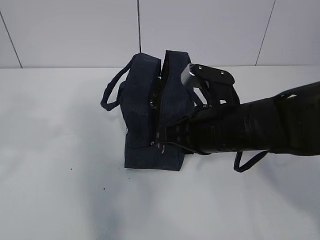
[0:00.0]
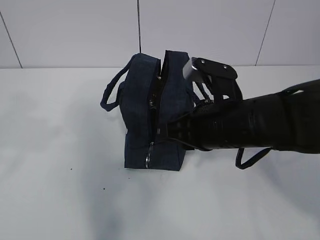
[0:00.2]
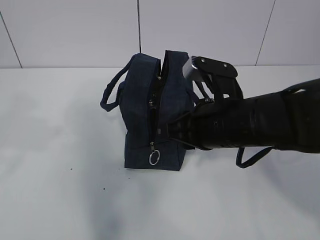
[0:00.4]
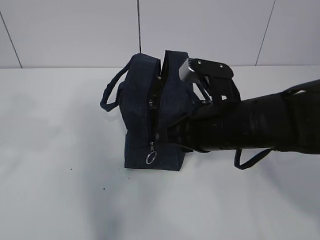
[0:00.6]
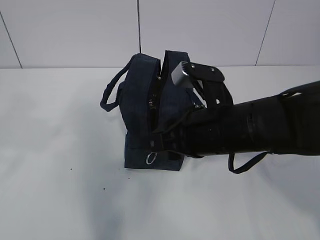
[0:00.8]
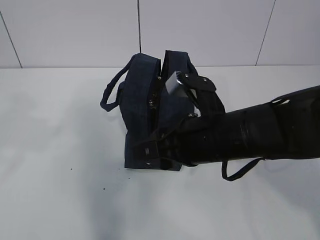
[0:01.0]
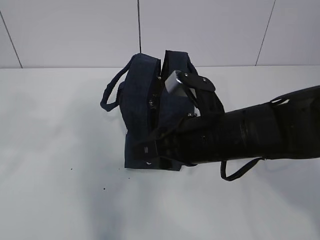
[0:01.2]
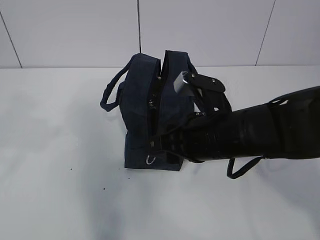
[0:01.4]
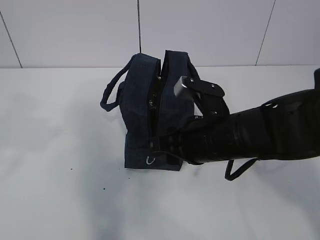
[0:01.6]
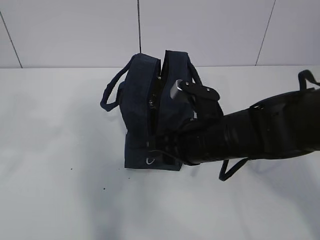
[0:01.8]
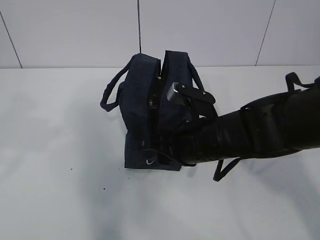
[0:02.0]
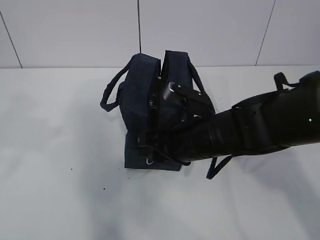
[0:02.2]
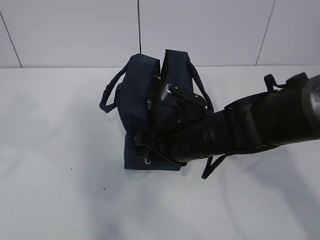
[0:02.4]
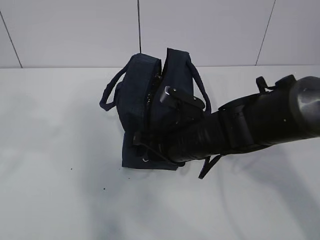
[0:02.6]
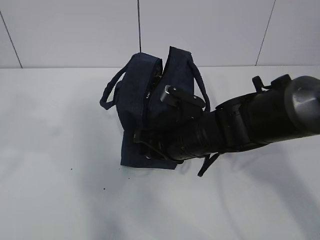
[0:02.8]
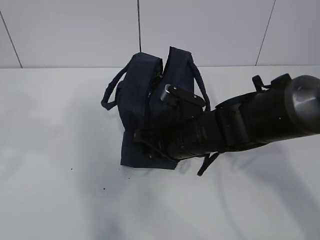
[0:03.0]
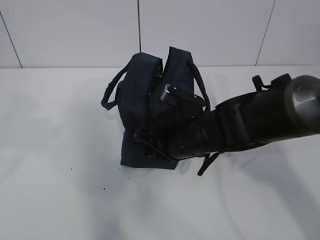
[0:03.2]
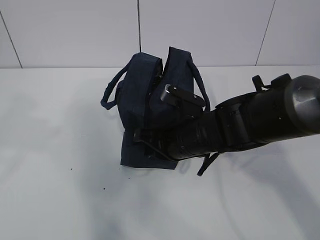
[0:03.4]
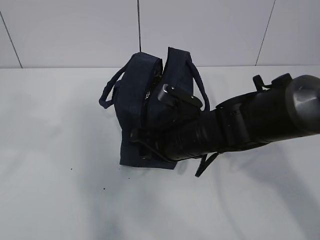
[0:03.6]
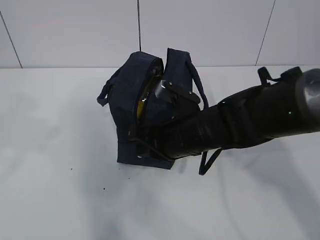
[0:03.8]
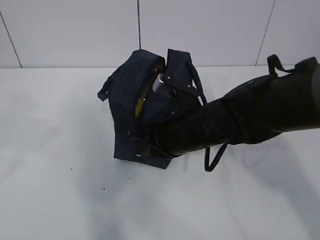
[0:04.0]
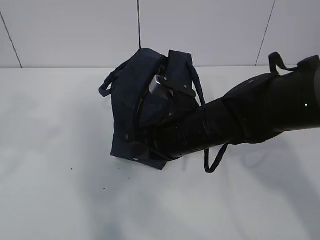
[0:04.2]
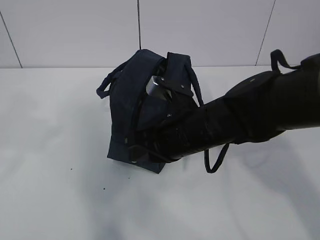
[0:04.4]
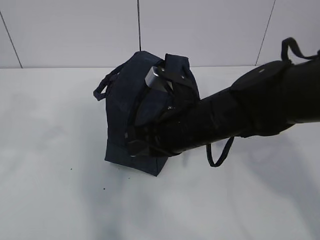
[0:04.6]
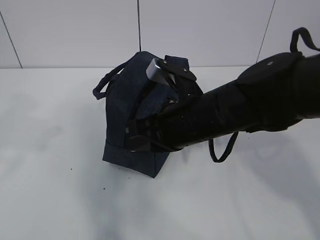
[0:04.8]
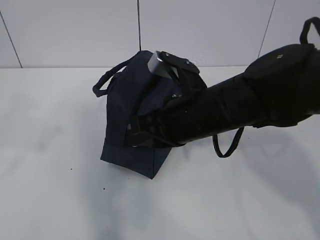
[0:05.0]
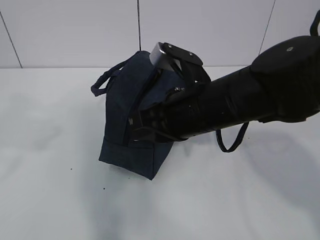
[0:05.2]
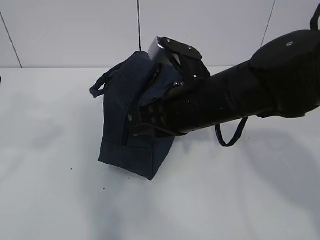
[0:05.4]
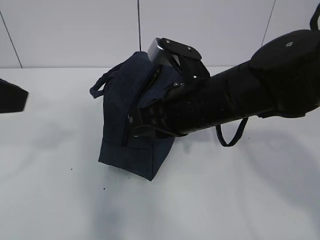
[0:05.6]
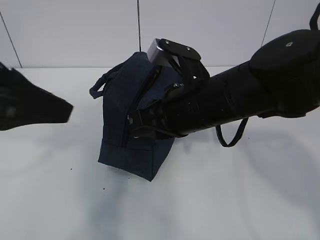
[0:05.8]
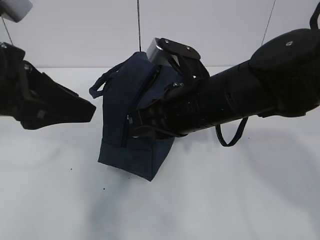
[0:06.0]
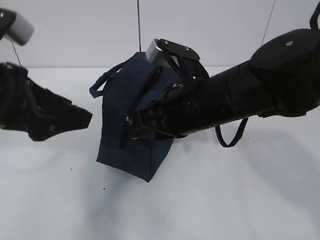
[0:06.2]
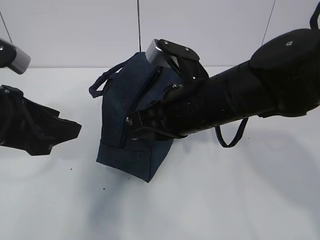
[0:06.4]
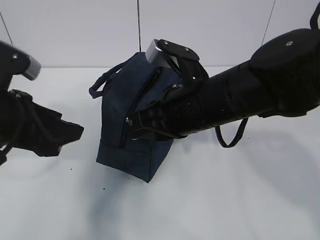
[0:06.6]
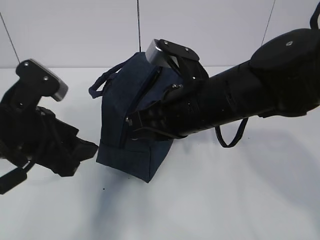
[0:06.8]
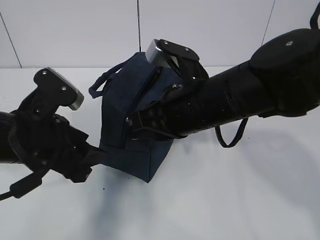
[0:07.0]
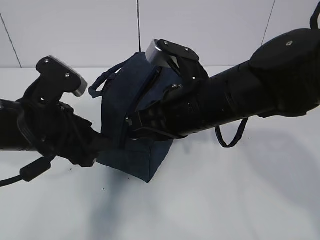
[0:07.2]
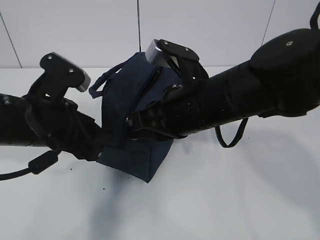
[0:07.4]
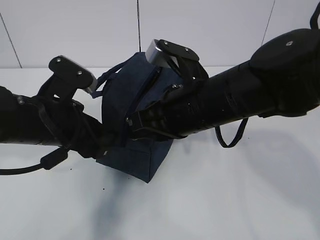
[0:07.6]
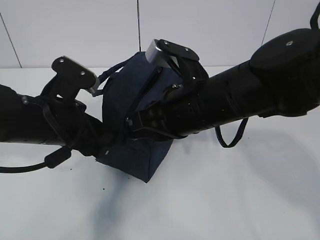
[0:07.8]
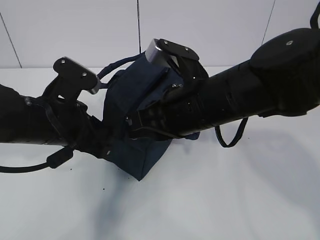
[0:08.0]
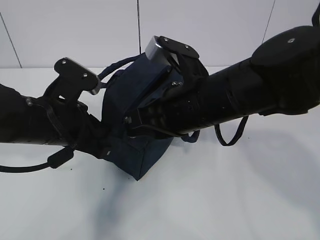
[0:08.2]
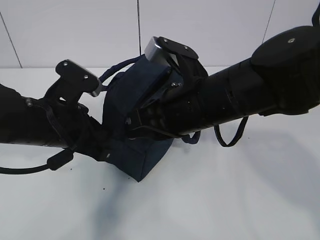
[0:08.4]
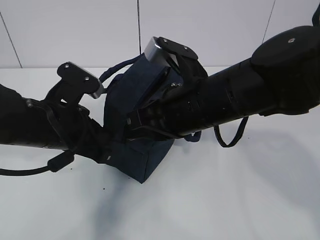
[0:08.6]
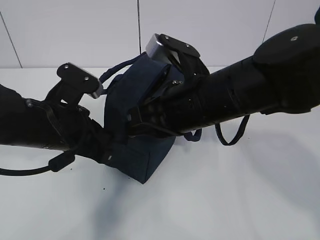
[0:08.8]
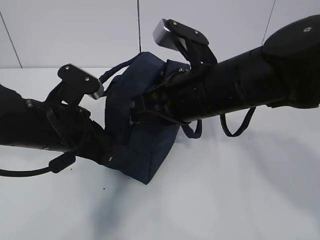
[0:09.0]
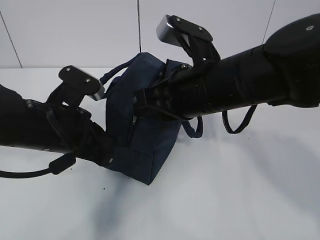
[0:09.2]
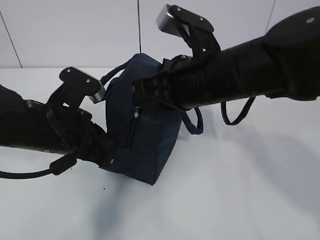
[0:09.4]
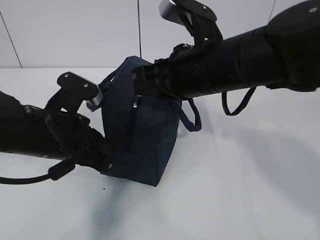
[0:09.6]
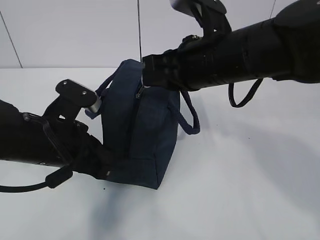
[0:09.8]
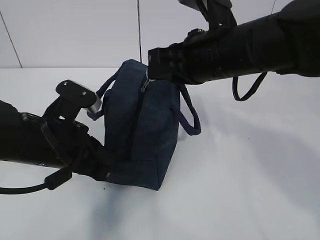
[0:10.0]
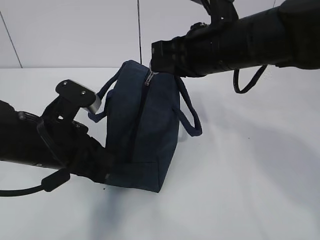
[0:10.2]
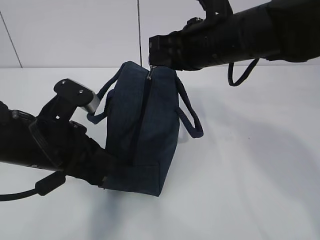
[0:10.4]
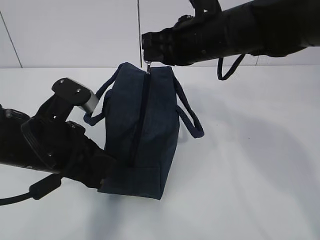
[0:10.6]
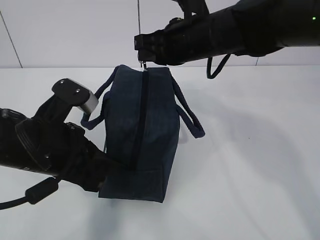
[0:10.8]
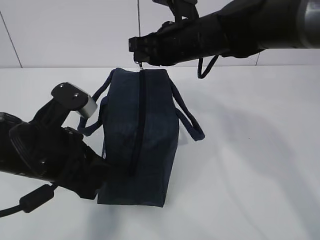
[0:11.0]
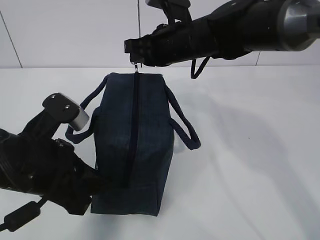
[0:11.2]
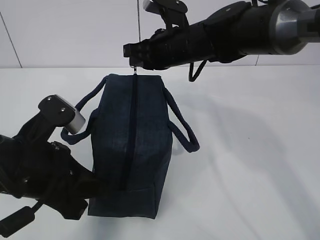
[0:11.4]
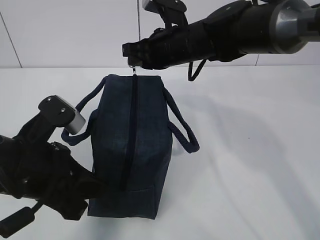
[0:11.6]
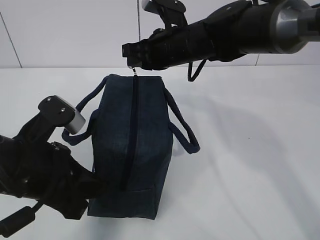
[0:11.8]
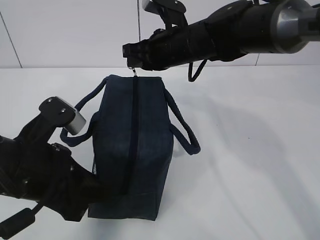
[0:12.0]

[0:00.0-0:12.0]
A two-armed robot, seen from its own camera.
Step, 0:01.8 to 0:05.6: Pull the zipper with your right hand.
Step, 0:05.8 to 0:07.4: Grab the lunch bag with your left hand.
0:00.0 to 0:01.6: The right gripper opens its fingers.
0:01.6 to 0:03.0: The right gripper ends up some 5 cm from where it was, and closes its fingers.
0:03.0 to 0:04.4: The grippers move only a little.
0:04.4 to 0:06.0: The left gripper shifts about 10 cm forward, downward and to the right, while the right gripper moves upward, approximately 5 cm.
0:06.0 to 0:07.6: The left gripper goes roughly 10 cm downward.
0:07.6 to 0:09.0: The left gripper closes.
0:09.0 to 0:10.4: The right gripper travels forward by about 5 cm.
0:10.4 to 0:12.0: The right gripper goes approximately 10 cm forward; the left gripper opens up.

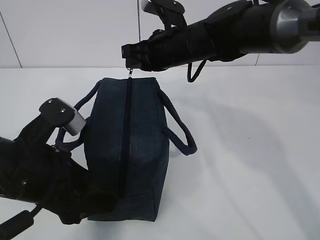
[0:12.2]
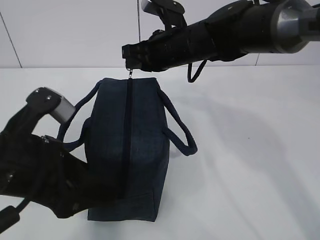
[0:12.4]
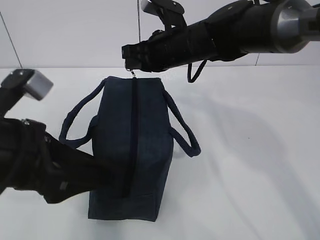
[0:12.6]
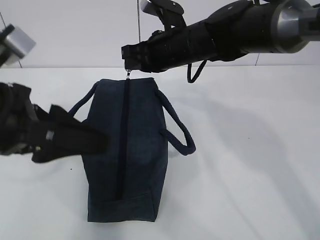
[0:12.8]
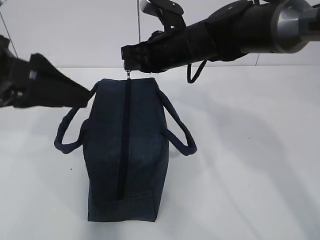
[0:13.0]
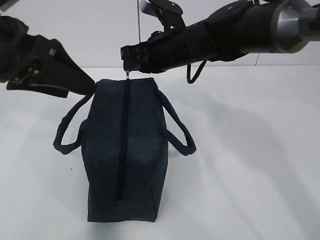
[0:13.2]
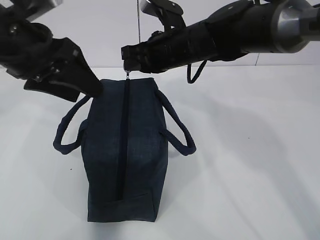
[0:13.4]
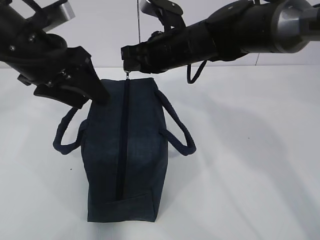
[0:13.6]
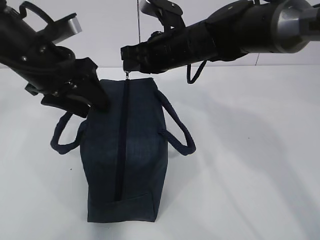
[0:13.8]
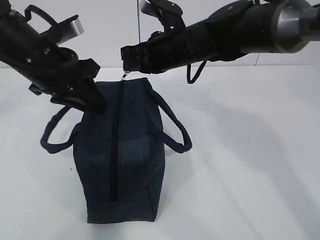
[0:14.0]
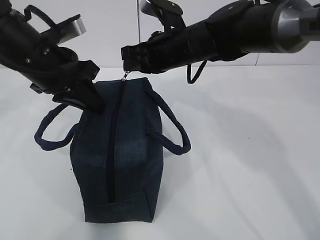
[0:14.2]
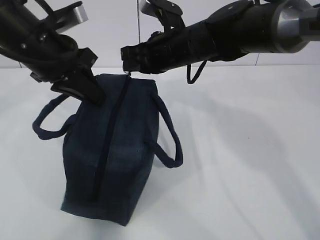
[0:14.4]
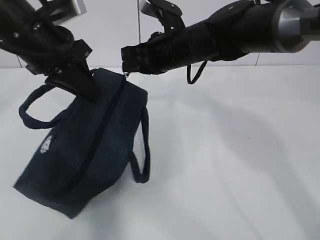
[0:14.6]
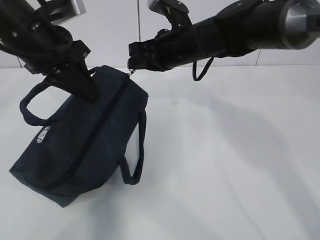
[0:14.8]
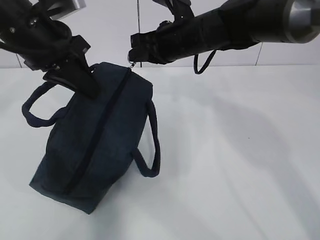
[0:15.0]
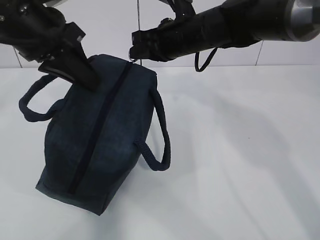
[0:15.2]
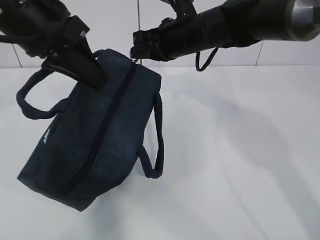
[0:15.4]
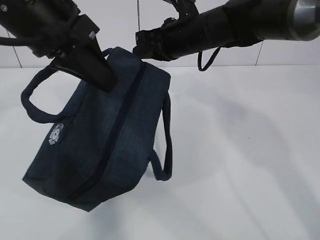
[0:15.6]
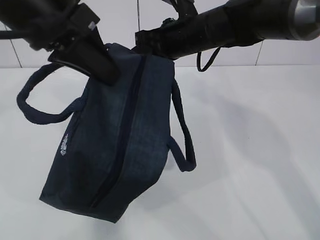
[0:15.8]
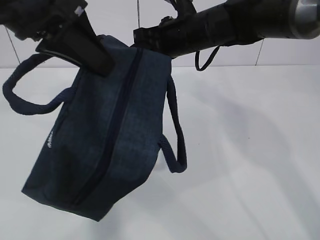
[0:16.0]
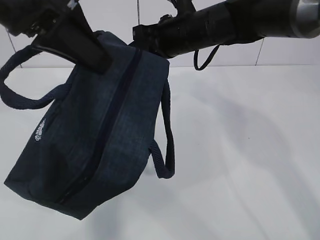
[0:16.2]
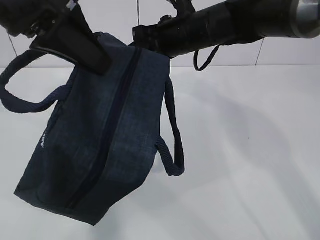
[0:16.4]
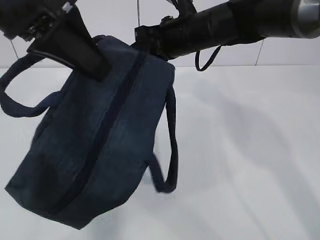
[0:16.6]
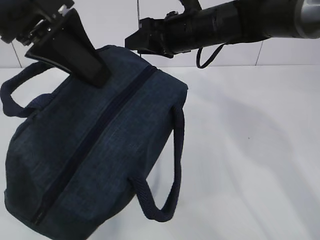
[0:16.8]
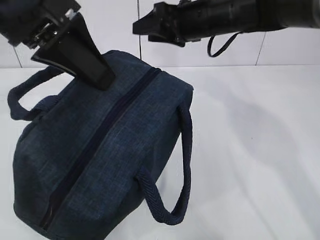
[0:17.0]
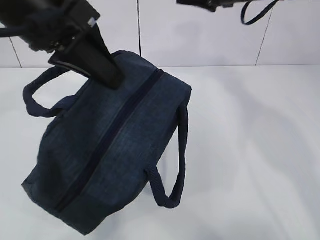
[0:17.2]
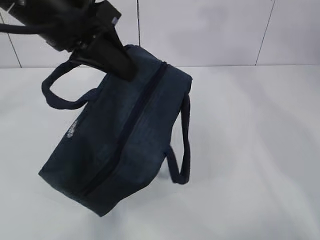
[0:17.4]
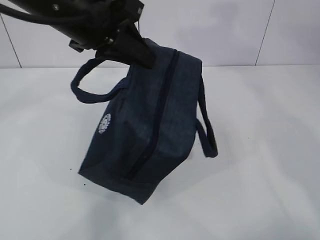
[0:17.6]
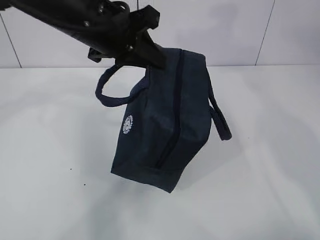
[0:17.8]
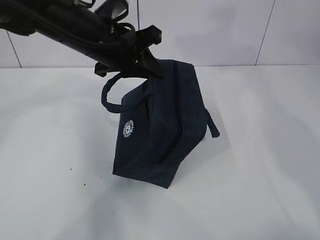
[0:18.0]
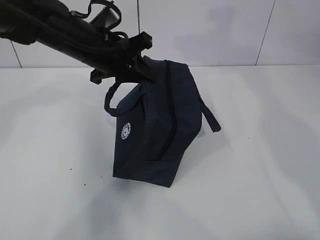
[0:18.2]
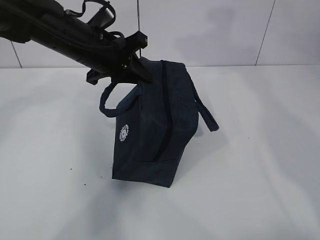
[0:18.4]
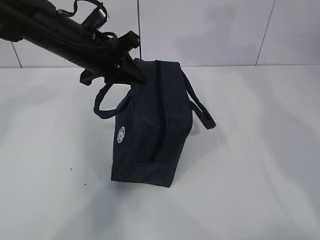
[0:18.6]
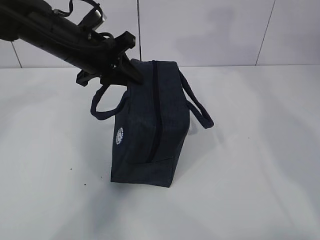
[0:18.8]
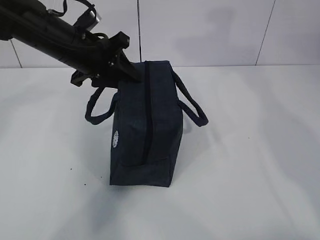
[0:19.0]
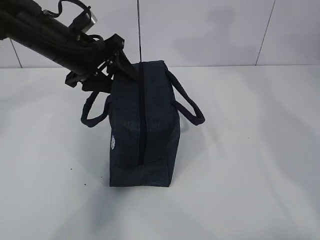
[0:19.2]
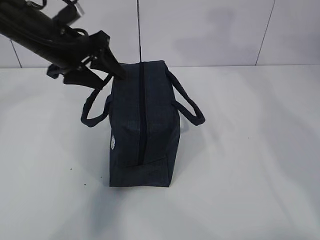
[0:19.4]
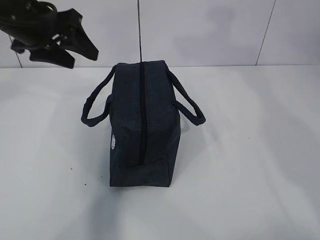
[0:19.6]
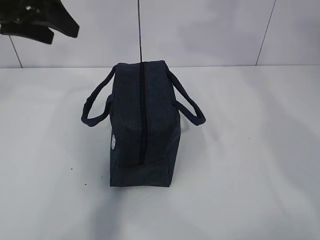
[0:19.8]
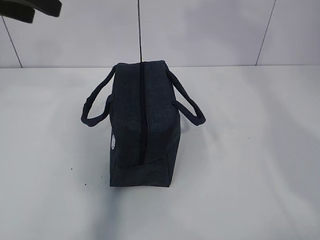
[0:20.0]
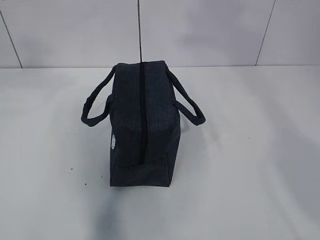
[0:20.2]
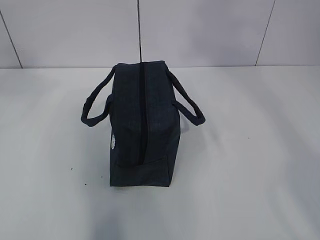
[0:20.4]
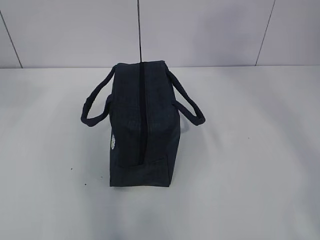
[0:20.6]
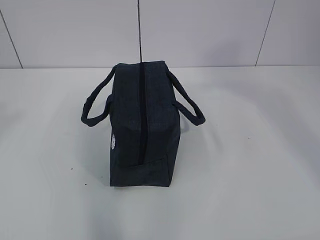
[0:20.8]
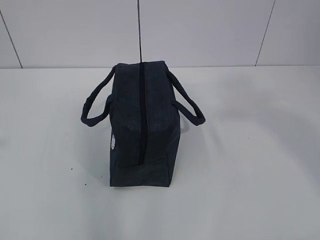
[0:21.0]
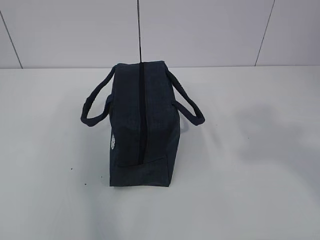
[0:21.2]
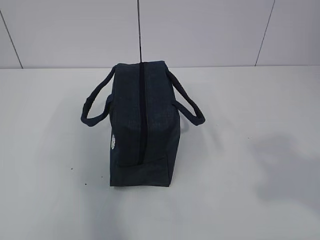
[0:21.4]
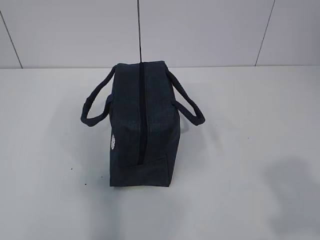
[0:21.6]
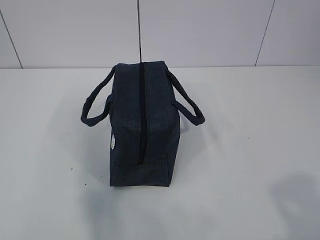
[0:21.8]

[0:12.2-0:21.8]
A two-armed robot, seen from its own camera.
0:12.2 to 0:13.8: The left gripper heads forward and upward, covering roughly 15 cm.
0:13.8 to 0:15.4: The left gripper shifts approximately 5 cm upward, and closes up.
0:15.4 to 0:17.0: The right gripper opens up. The left gripper is displaced backward by roughly 5 cm.
0:17.0 to 0:18.6: The left gripper travels forward and downward by about 20 cm, while the right gripper is displaced to the right and upward by about 15 cm.
0:18.6 to 0:20.2: The left gripper heads upward, backward and to the left, covering roughly 25 cm, and opens. The right gripper goes some 25 cm upward and backward.
0:20.2 to 0:21.8: The right gripper shifts roughly 35 cm downward and backward. Meanwhile the left gripper is displaced backward and downward by approximately 30 cm.
